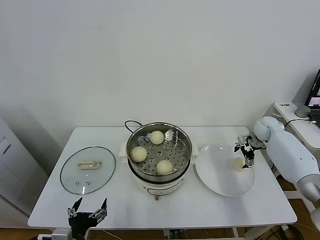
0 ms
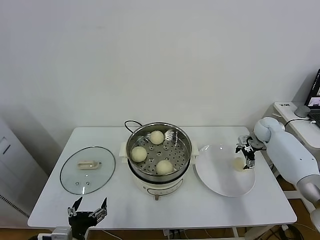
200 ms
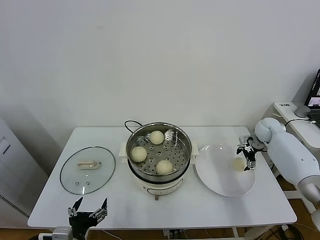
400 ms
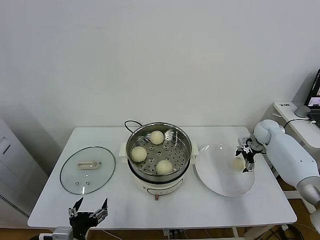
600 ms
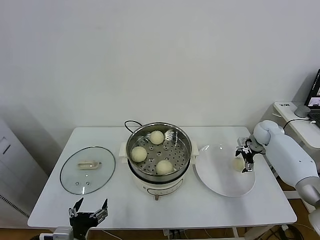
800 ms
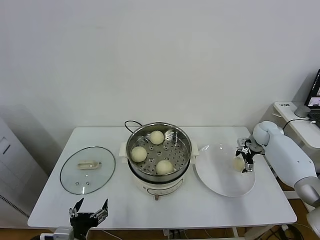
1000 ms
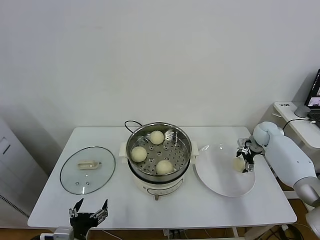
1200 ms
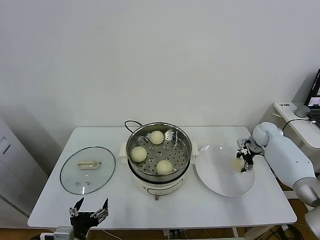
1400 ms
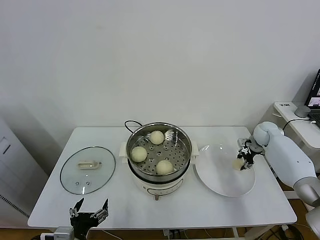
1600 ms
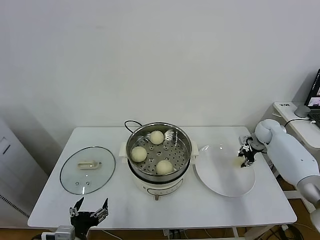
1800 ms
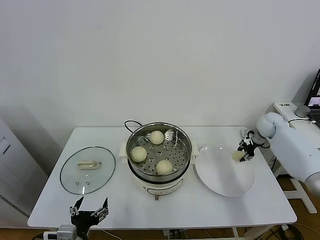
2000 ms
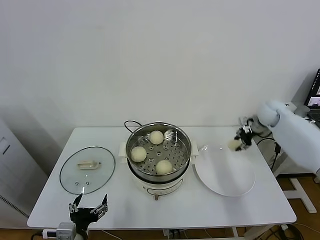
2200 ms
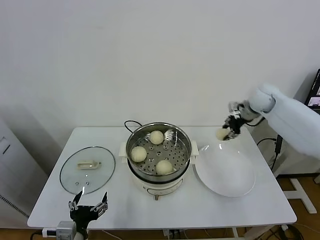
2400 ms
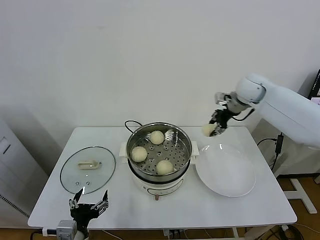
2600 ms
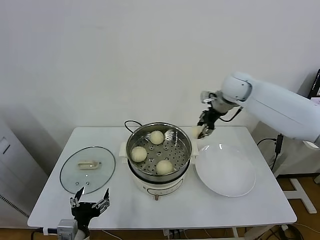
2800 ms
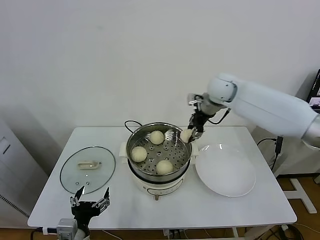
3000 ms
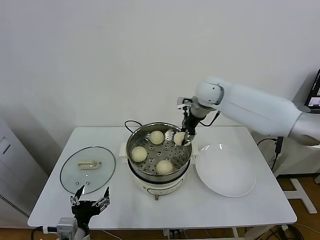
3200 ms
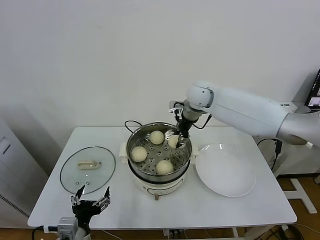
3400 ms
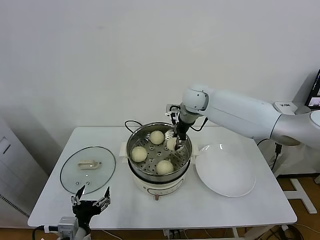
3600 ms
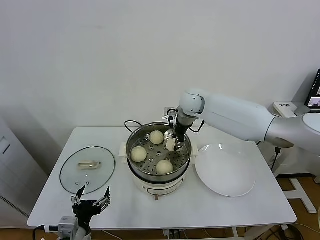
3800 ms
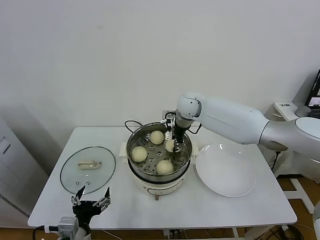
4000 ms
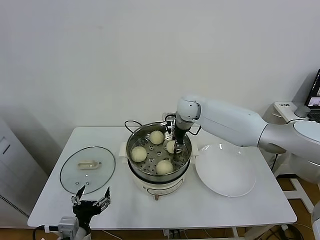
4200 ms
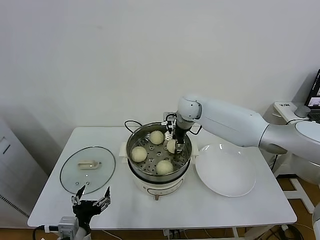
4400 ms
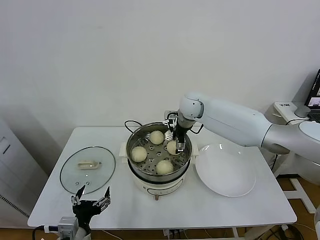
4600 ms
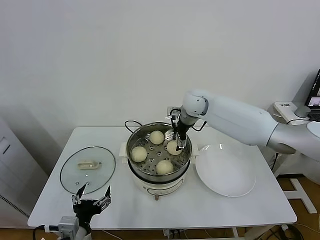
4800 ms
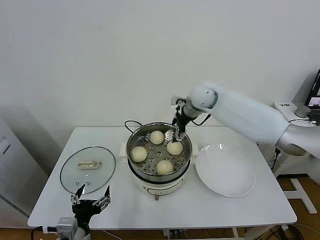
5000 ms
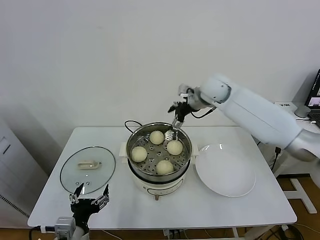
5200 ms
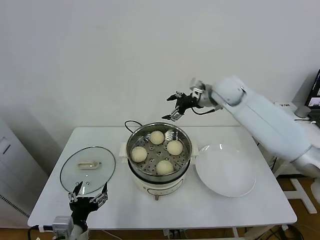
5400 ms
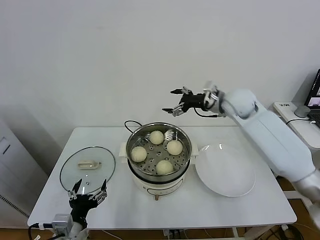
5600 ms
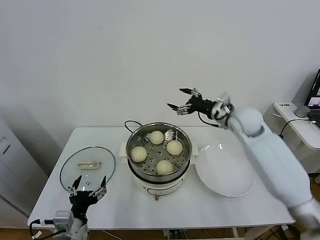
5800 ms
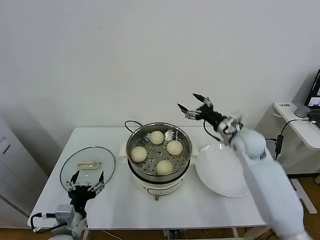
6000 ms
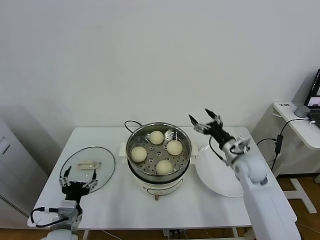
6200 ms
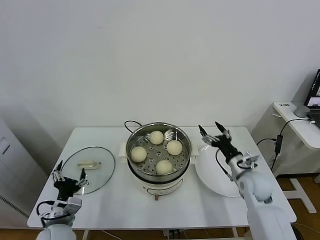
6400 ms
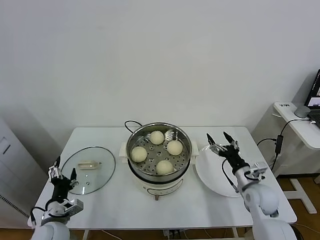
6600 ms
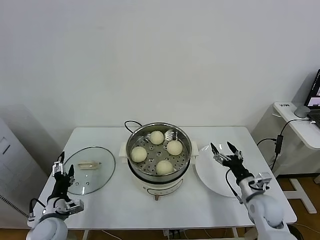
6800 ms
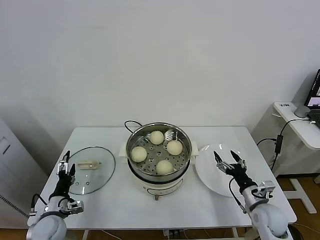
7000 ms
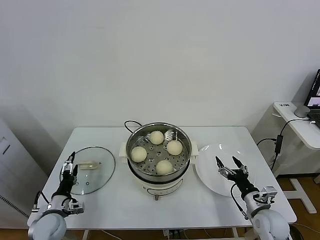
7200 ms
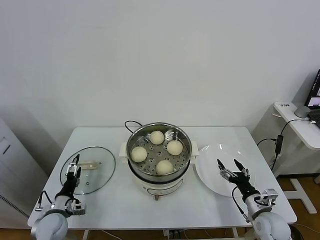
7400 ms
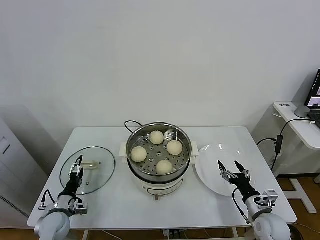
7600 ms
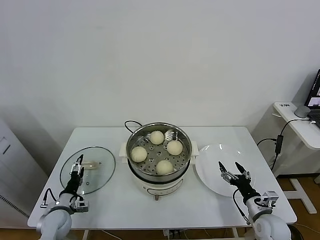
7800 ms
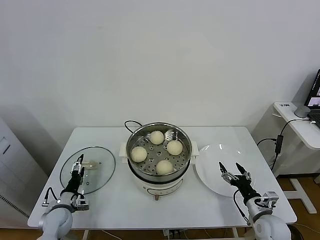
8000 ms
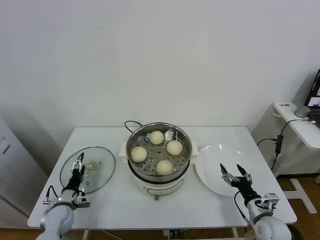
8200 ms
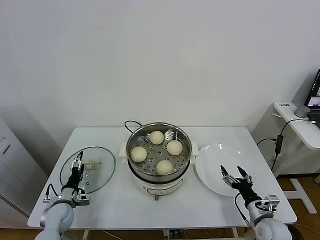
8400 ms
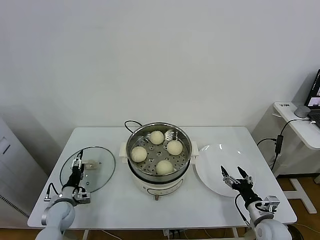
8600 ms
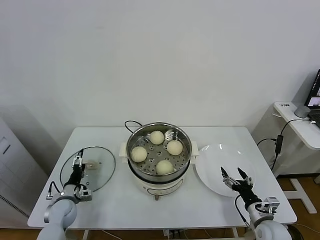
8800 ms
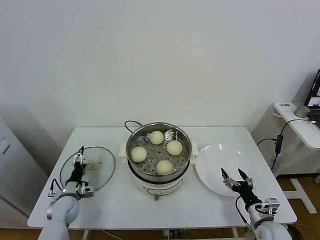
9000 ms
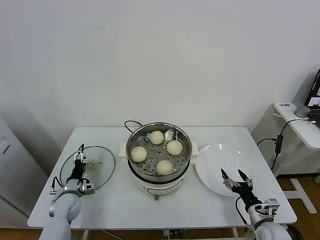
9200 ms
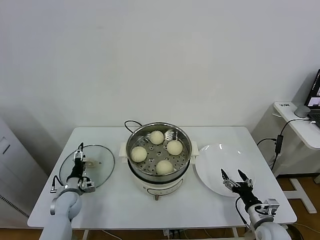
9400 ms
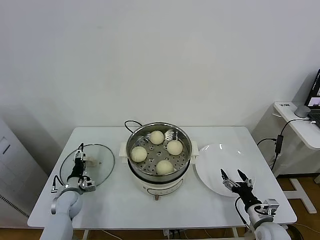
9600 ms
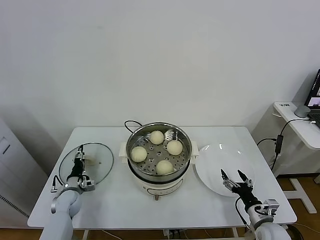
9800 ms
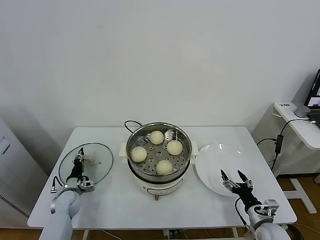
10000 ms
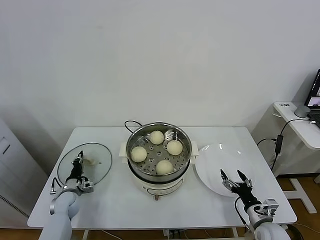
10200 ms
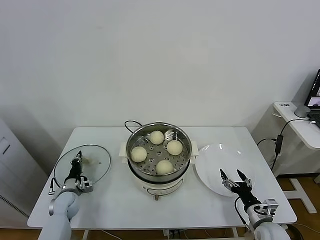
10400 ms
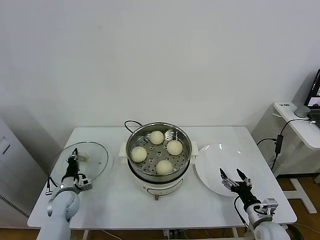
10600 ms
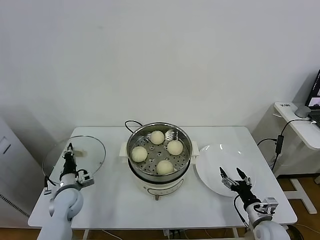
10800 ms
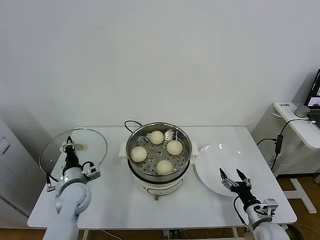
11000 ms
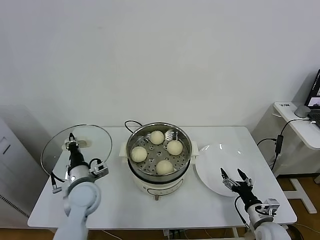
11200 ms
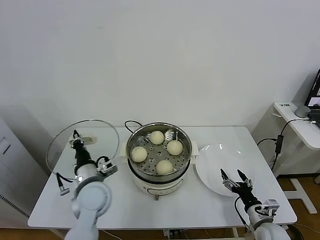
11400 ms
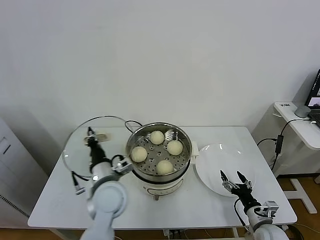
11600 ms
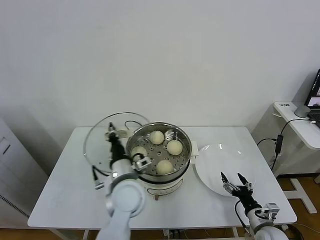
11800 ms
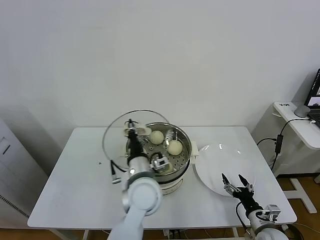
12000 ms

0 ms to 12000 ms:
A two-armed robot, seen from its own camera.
Task of the whole recording: take steamed baozi put them in steamer.
Step, 1800 ms to 4800 ms: Place the baozi on the steamer with right gripper.
Step, 5000 ms to 10400 ms: Grasp the pot lid with left gripper.
0 ms to 1600 ms: The right gripper closes up.
1600 ms to 3000 ms: The right gripper moves to the left and upward, about 35 cm.
3000 ms to 4400 ms: The right gripper heads to the left and downward, covering roughly 15 cm.
4400 ms to 6000 ms: The right gripper heads to the right and backward, covering about 20 cm, and opens.
6000 ms to 7600 ms: The right gripper moves downward and backward, roughly 30 cm, while the left gripper is displaced downward, to the left and forward by roughly 20 cm.
7600 ms to 9000 ms: The left gripper goes some 5 cm forward.
9000 ms to 10400 ms: The left gripper closes.
10400 ms to 12000 ms: The left gripper goes some 40 cm to the right and upward.

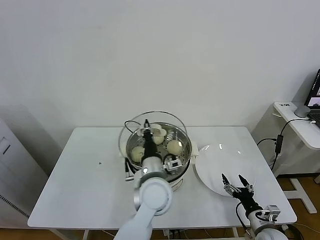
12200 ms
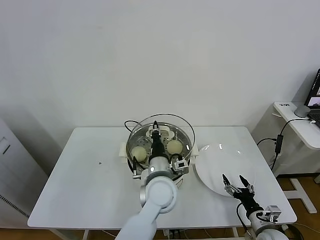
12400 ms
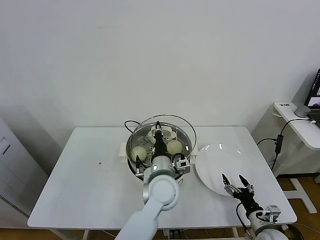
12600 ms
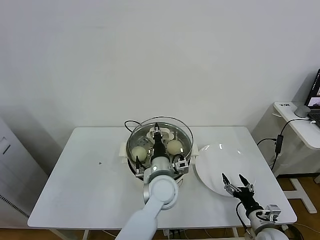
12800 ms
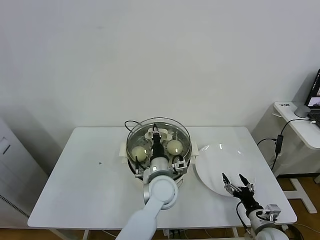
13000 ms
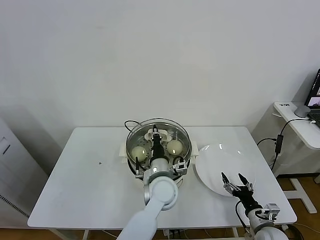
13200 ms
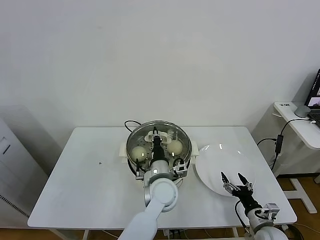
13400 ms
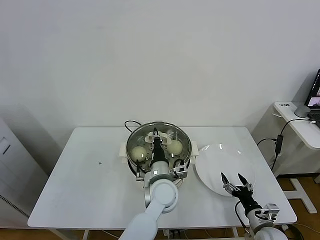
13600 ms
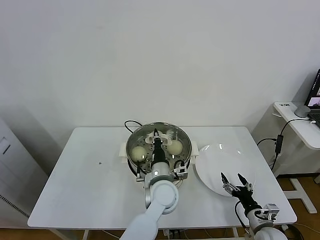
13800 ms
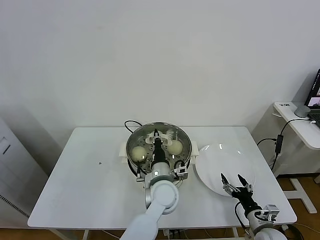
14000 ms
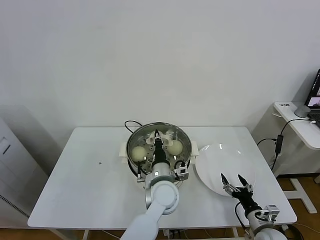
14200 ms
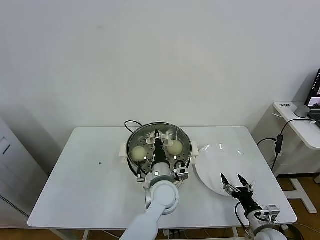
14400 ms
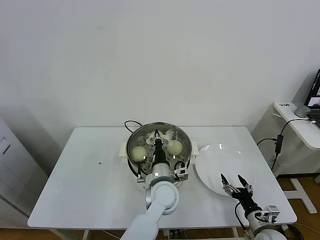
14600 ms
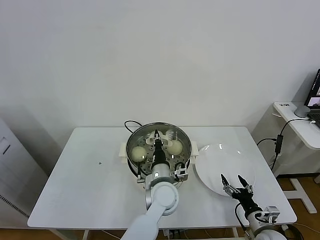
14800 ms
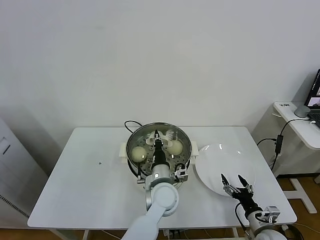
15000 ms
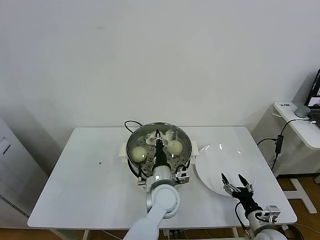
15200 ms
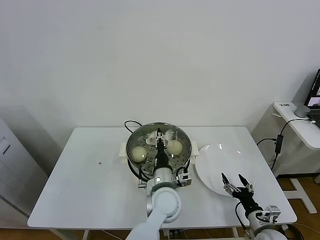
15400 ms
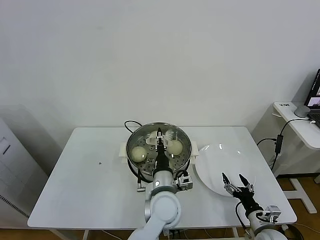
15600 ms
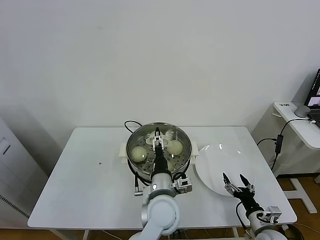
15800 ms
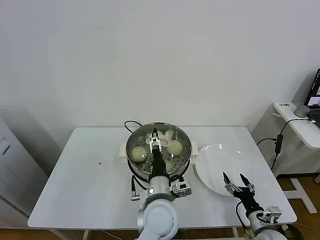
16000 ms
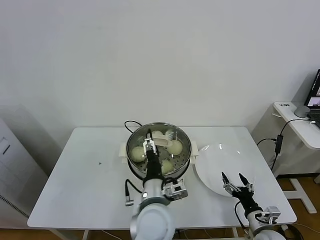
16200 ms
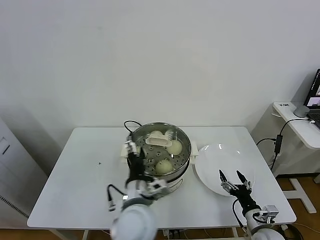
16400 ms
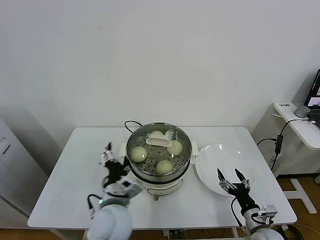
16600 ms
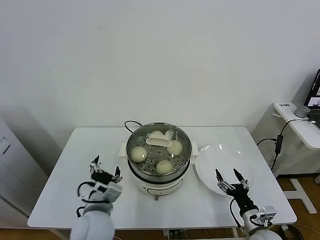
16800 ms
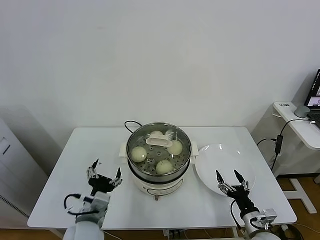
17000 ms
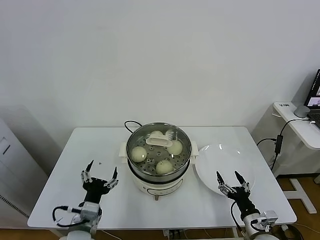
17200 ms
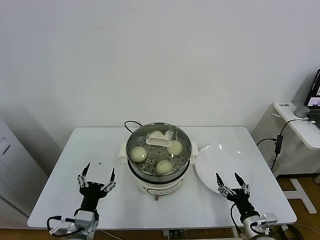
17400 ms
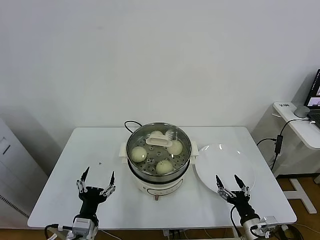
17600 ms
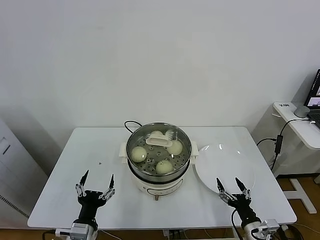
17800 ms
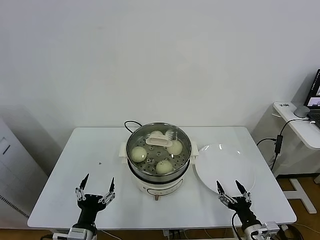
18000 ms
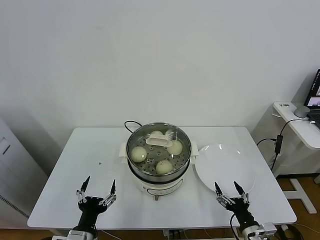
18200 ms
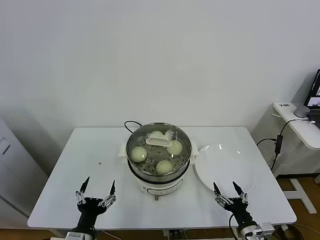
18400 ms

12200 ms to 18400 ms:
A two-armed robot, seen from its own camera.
Task of the whole recording: take steamed baozi put them in steamer.
Step, 12200 ms to 16000 ms: Place the pot lid on the steamer with left gripper.
12200 ms to 13800 ms: The left gripper travels downward by about 5 cm.
13800 ms to 15400 ms: The grippers move only a little.
15400 ms to 16800 ms: The left gripper travels to the left and backward by some 20 cm, and opens up.
16800 ms to 18400 ms: The left gripper heads backward, downward and to the left, covering about 15 cm, while the right gripper heads backward, covering some 5 cm.

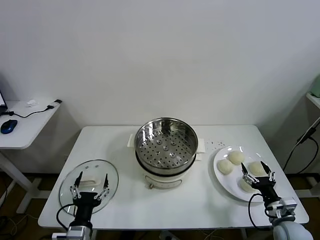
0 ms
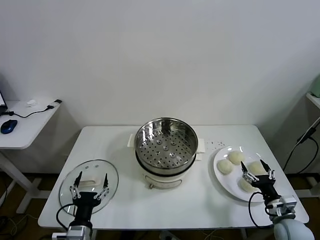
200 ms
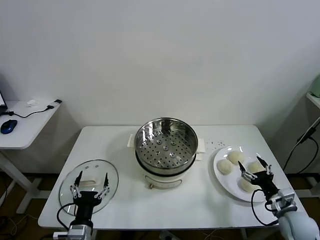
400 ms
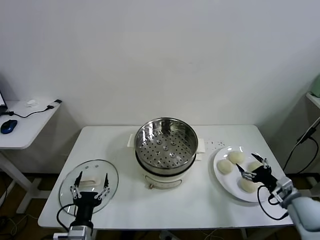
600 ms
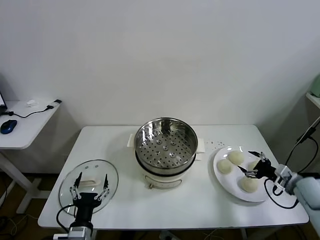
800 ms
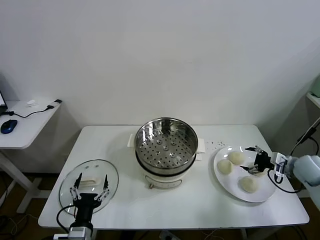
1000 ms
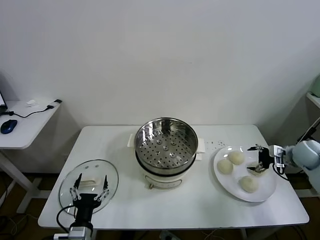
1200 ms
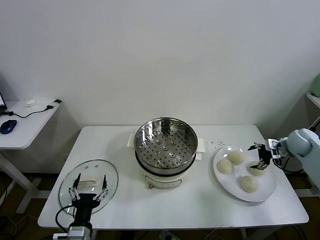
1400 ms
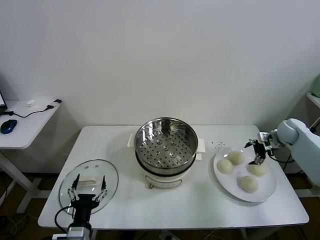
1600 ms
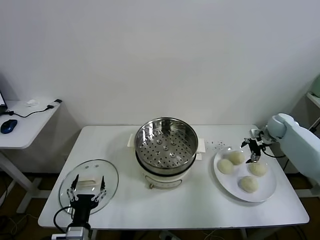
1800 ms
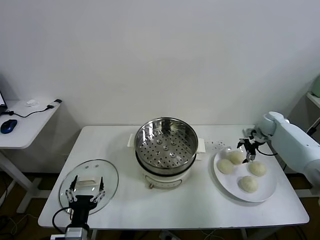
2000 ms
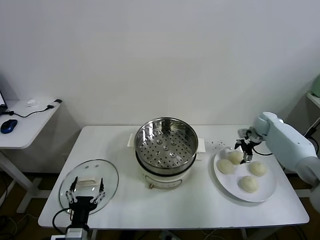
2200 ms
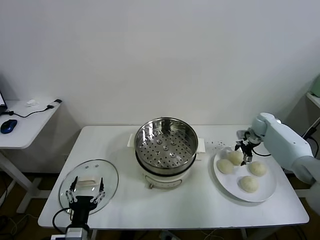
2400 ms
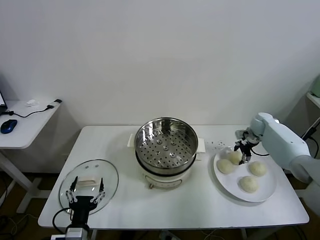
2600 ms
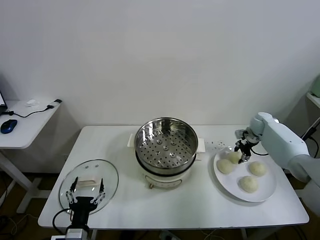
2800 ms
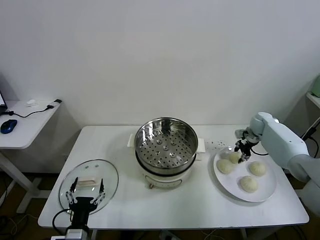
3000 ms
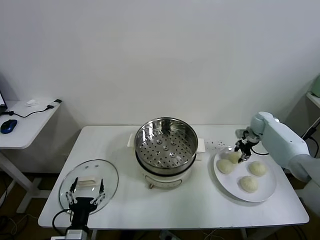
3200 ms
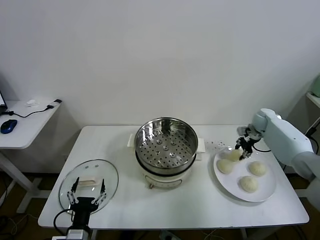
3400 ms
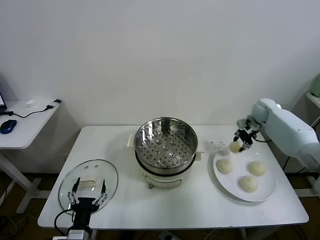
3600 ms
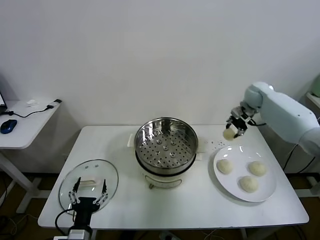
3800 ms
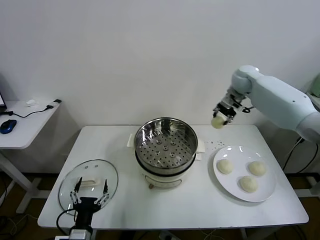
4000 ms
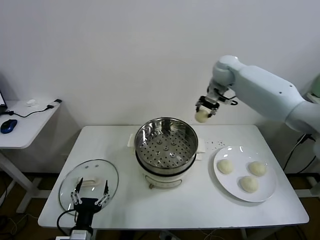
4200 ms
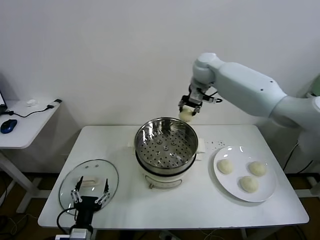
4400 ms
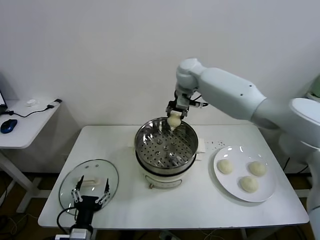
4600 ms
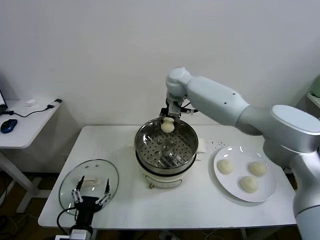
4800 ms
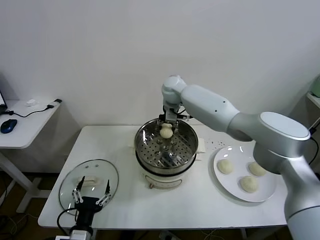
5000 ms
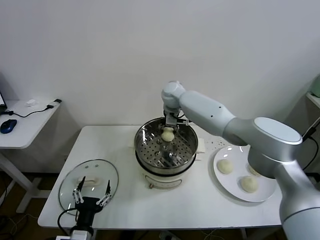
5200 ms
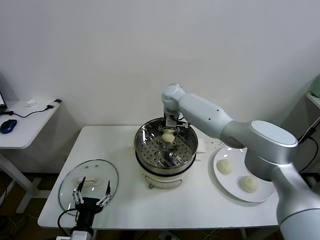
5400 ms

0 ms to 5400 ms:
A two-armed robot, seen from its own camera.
Task of the whole recording: take steamed baozi put them in steamer.
Step, 0 ms to 2800 ms: Grasp the baozi in the plate with right gripper.
1400 ms to 2800 ms: The right gripper heads forward and to the left, covering roughly 10 cm, and closes up.
2800 ms to 4000 ms: The right gripper goes approximately 30 cm upward and to the left.
4000 ms to 5400 ms: The right gripper goes some 25 cm to the left and downward, and opens up.
